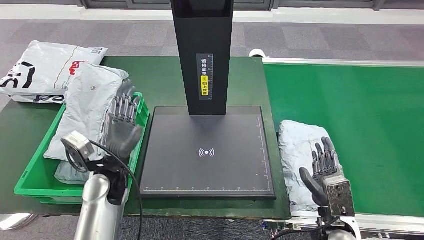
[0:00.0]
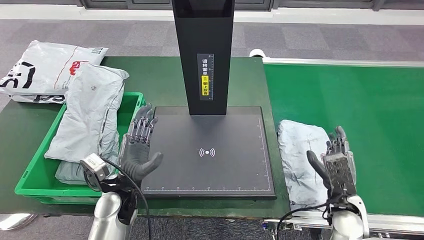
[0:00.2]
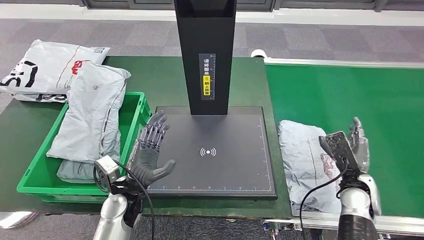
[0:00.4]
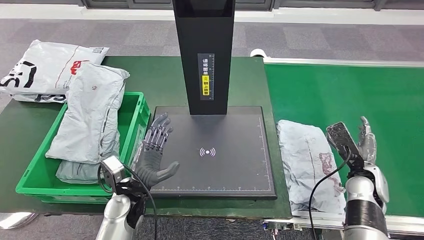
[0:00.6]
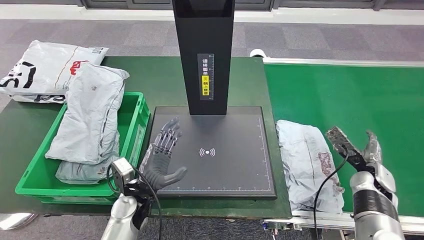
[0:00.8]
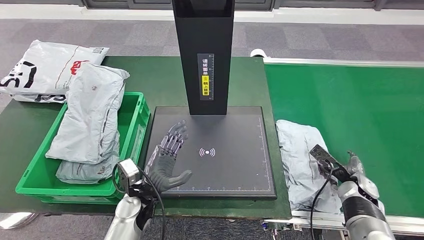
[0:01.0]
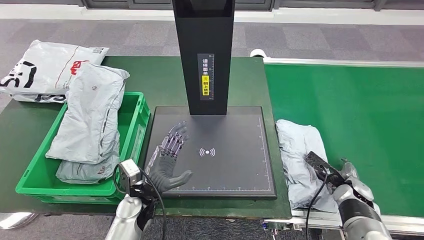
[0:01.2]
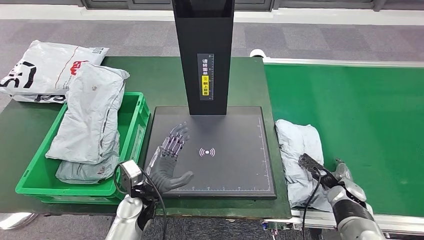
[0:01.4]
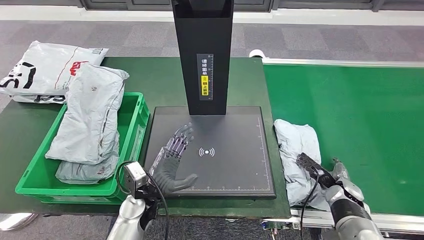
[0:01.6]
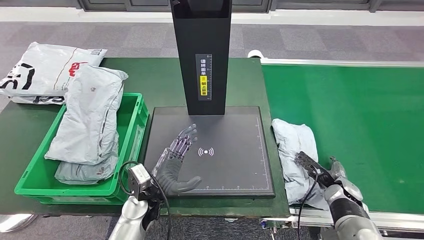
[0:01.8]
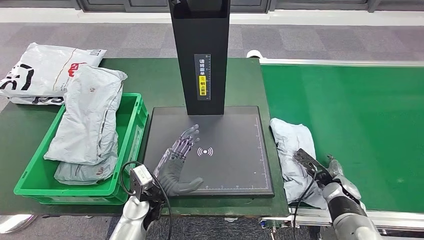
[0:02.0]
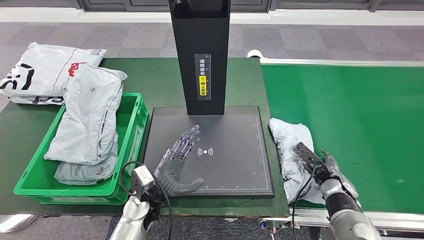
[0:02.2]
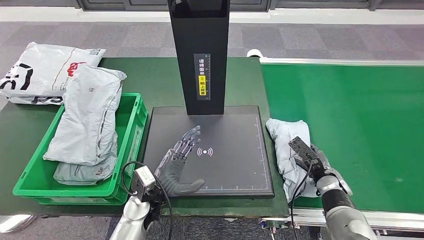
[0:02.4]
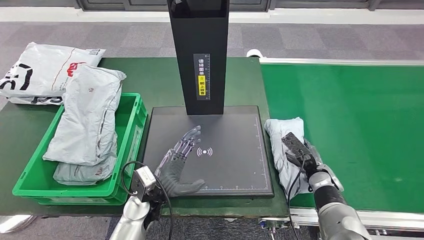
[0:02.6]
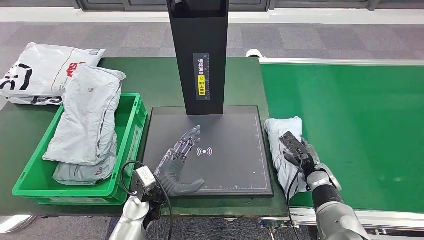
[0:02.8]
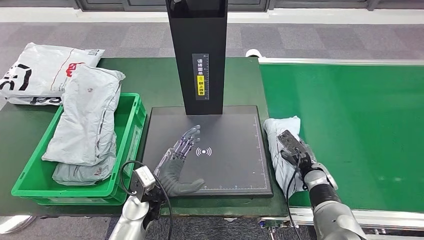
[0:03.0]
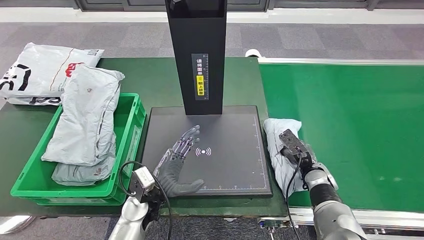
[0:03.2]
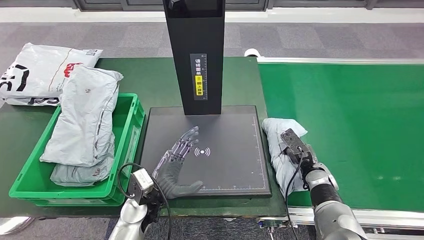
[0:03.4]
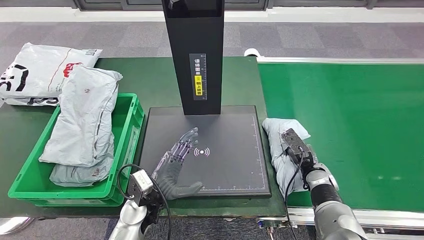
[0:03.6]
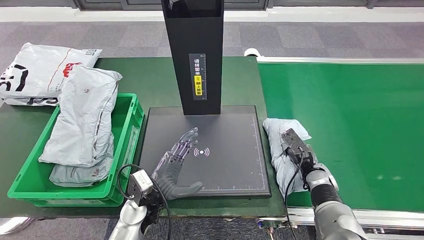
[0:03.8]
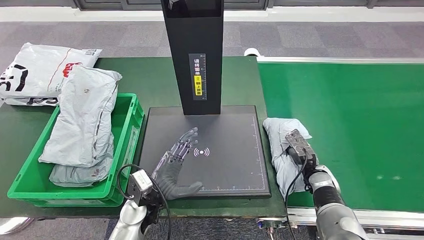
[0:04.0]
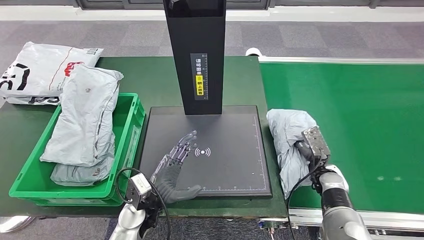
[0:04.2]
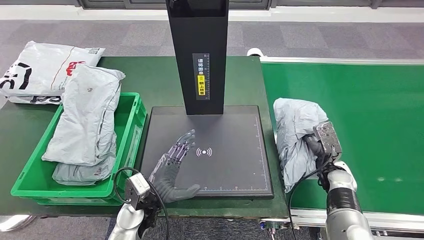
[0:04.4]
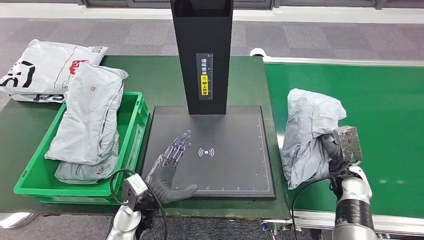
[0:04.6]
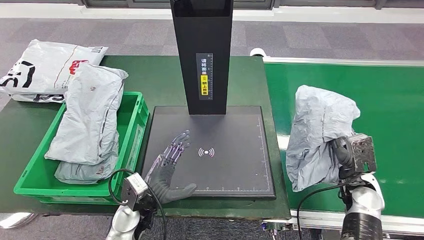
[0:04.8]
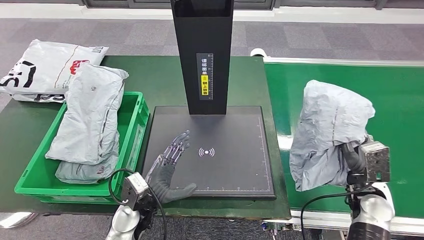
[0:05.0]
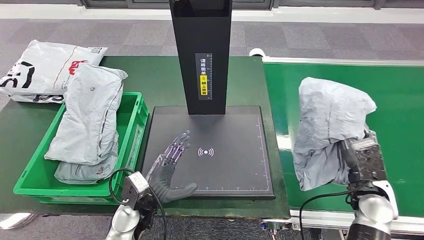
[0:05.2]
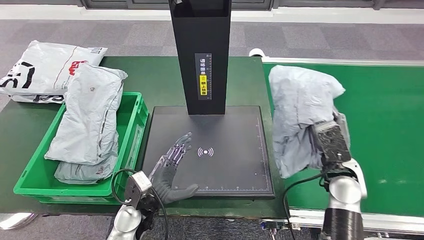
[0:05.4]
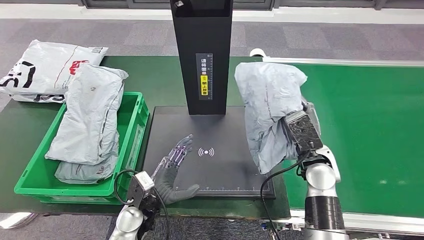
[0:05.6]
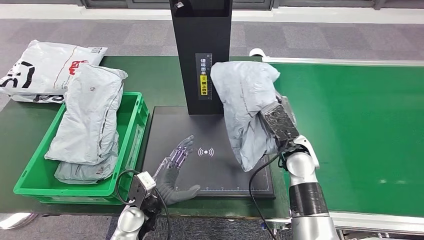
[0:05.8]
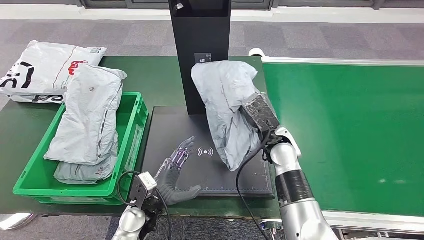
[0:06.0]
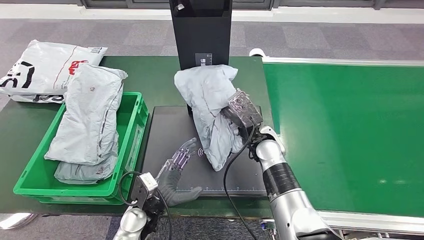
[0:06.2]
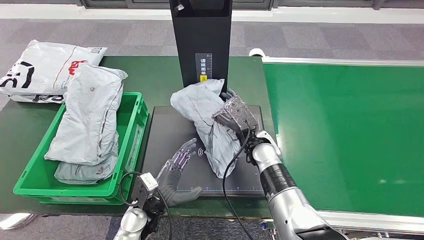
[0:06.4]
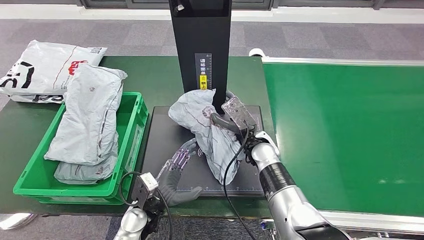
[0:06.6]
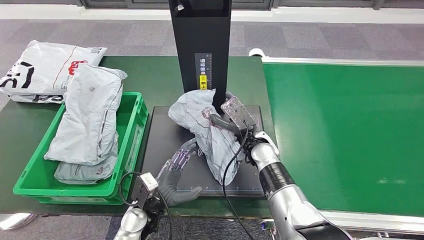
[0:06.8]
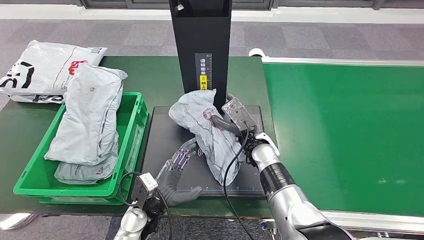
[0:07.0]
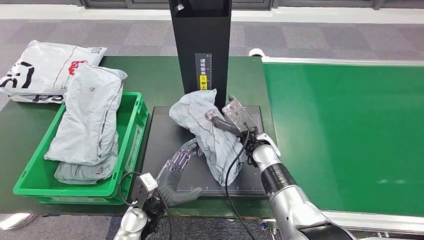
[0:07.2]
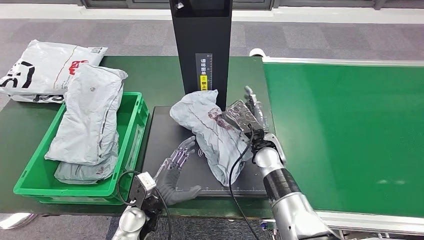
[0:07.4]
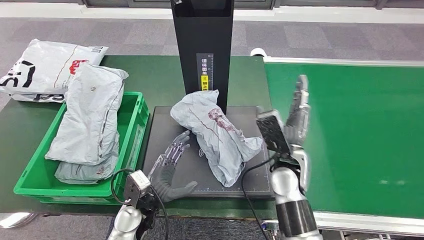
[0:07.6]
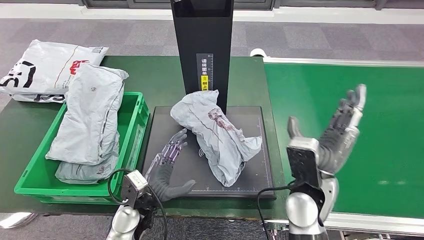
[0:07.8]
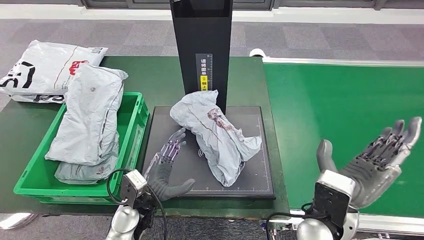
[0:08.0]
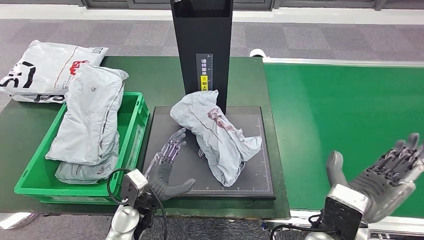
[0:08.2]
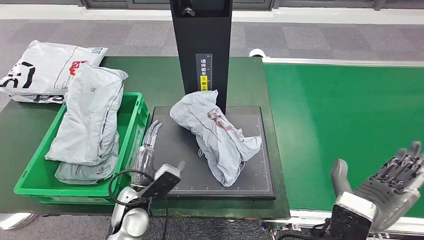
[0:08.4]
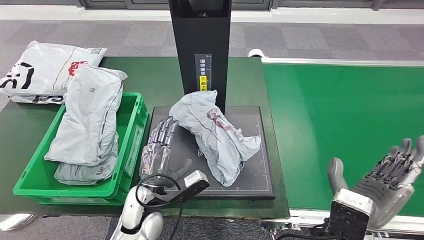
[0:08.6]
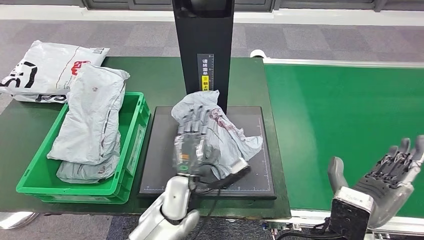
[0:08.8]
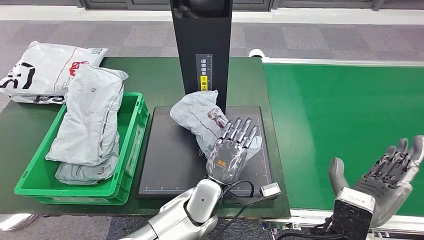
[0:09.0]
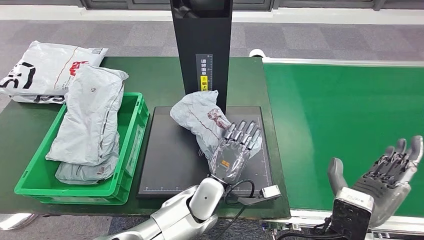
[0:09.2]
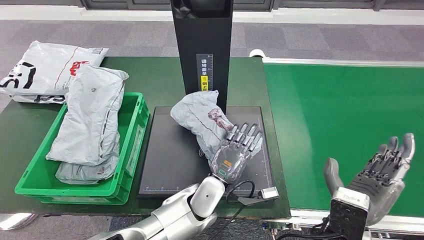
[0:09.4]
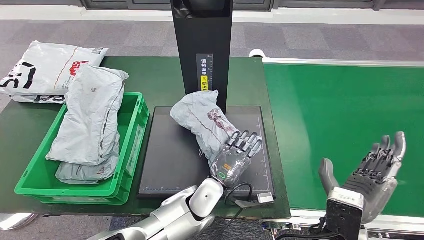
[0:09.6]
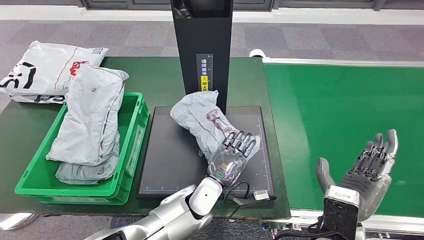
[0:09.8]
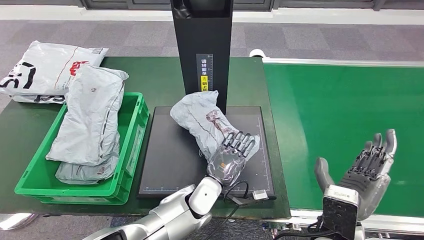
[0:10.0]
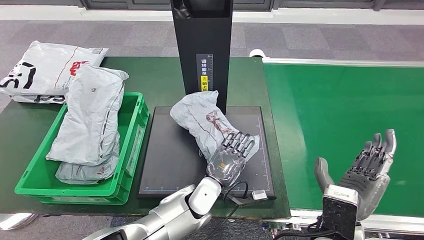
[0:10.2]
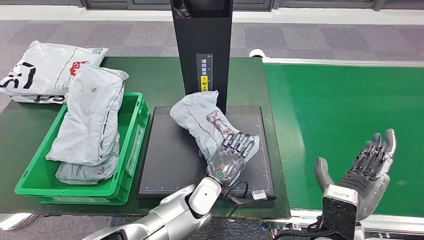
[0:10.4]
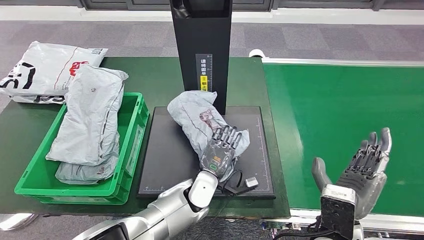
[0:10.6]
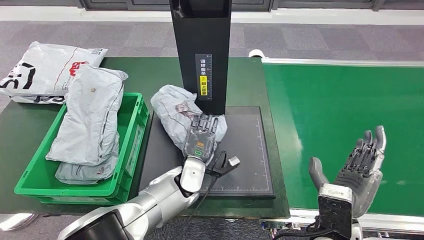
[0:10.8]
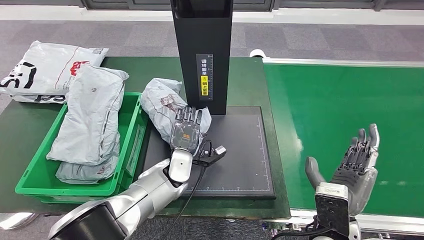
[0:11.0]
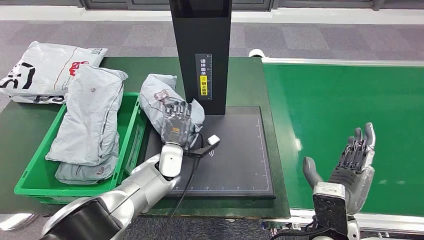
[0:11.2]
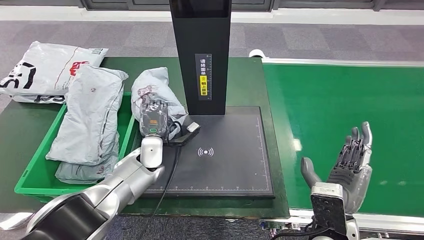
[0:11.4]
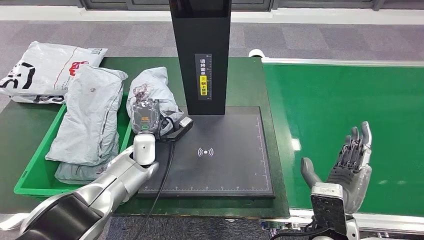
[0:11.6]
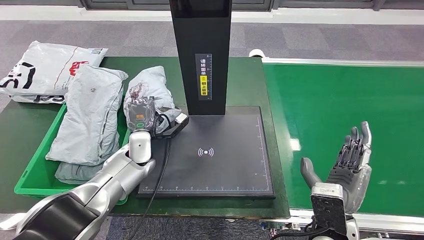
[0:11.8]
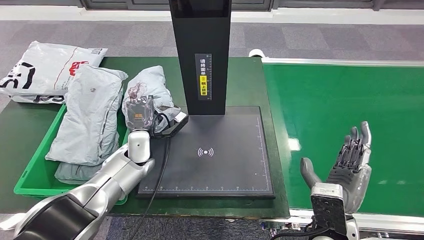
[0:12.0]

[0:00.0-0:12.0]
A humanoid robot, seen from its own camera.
Step, 0:01.8 to 0:05.0: Pick up the parcel from the conveyor belt.
Step, 0:05.4 to 0:07.6: Place the parcel onto the inbound machine.
0:00.0 to 0:01.6: The left hand is displaced downward and to the right by some 10 cm; the right hand heads forward, downward and to the right, covering roughly 15 cm.
0:03.0 to 0:04.4: The right hand moves to the right, some 5 cm.
0:09.0 to 0:10.4: The left hand moves roughly 5 cm.

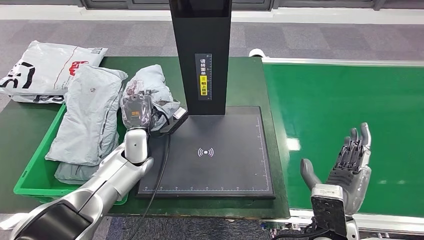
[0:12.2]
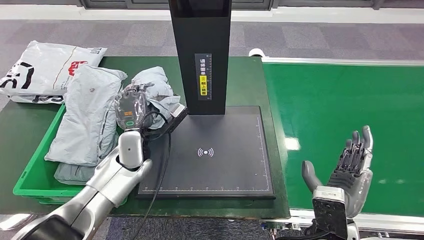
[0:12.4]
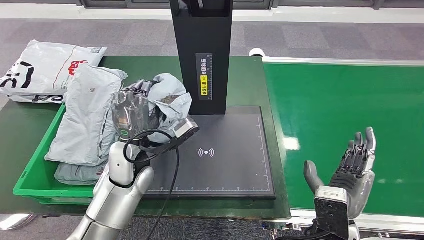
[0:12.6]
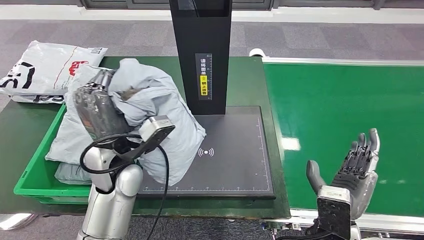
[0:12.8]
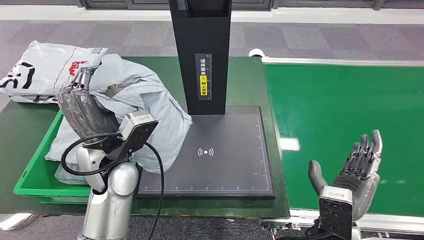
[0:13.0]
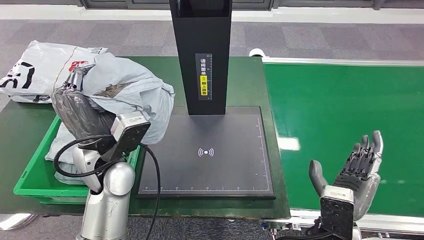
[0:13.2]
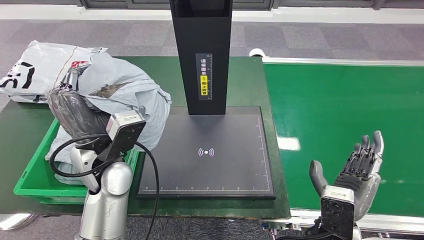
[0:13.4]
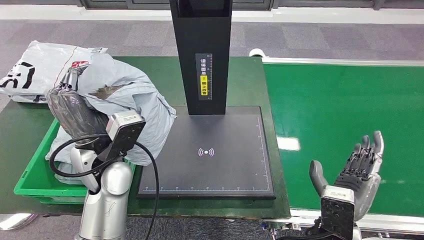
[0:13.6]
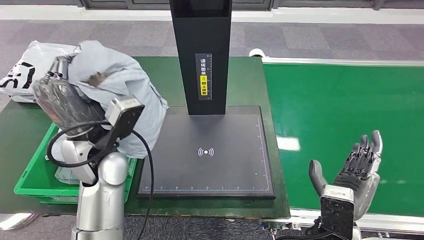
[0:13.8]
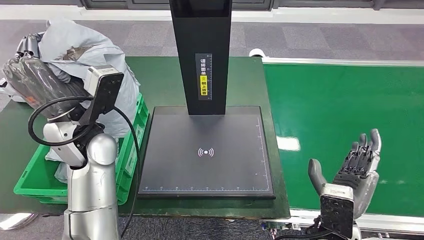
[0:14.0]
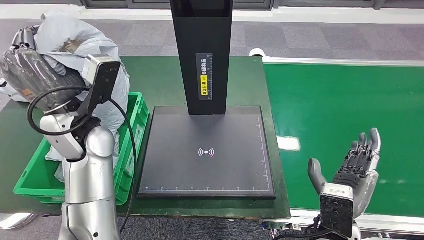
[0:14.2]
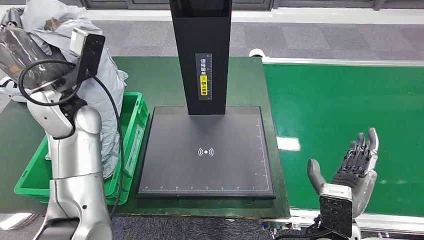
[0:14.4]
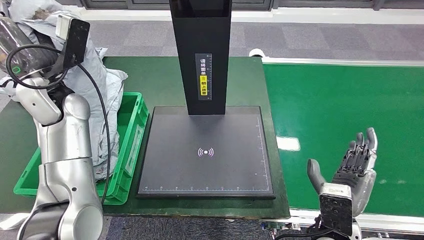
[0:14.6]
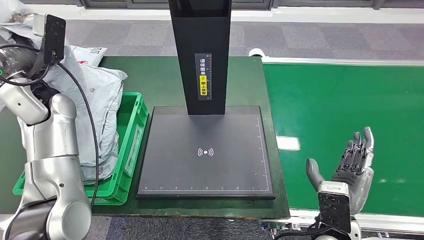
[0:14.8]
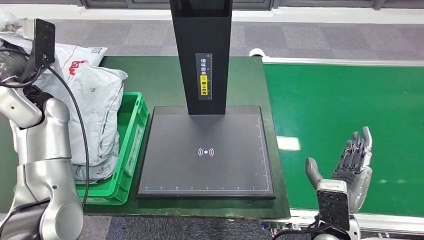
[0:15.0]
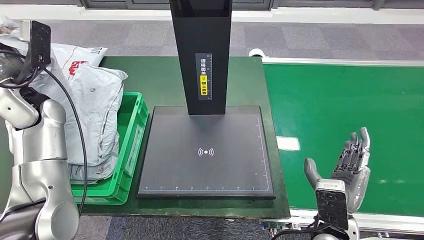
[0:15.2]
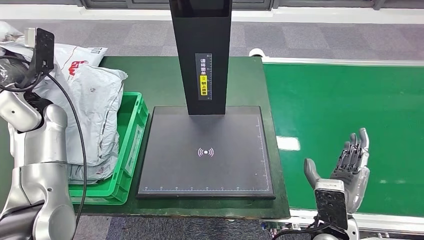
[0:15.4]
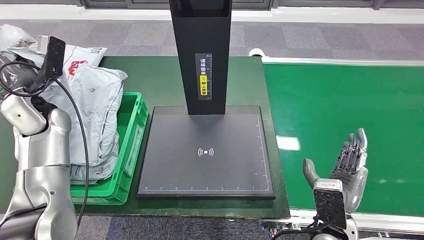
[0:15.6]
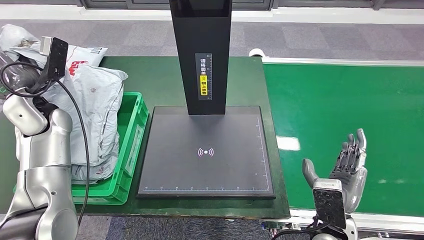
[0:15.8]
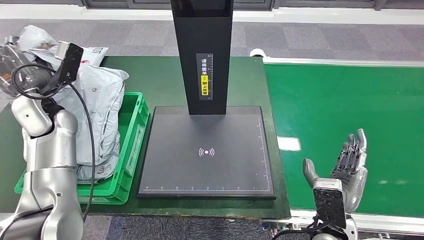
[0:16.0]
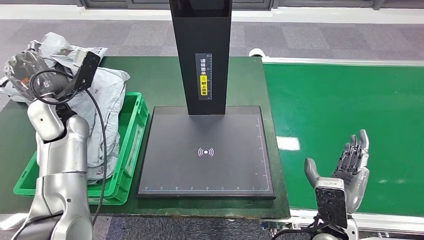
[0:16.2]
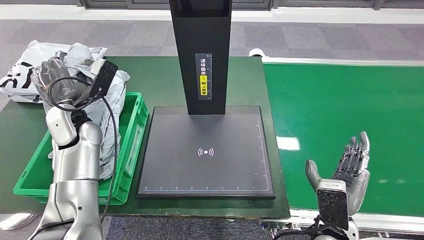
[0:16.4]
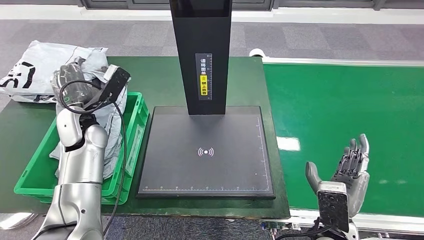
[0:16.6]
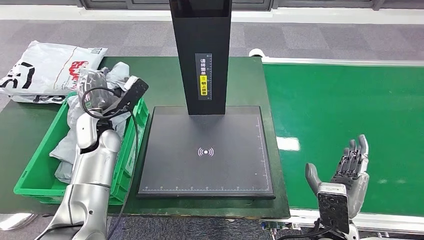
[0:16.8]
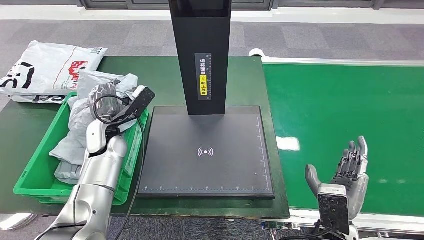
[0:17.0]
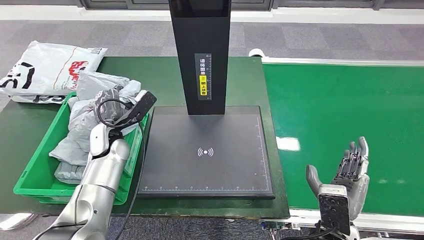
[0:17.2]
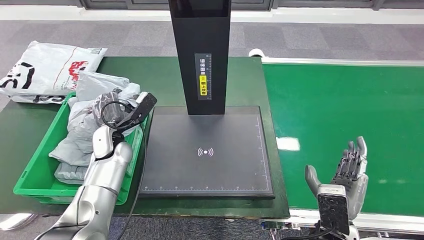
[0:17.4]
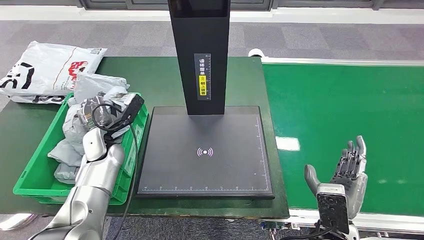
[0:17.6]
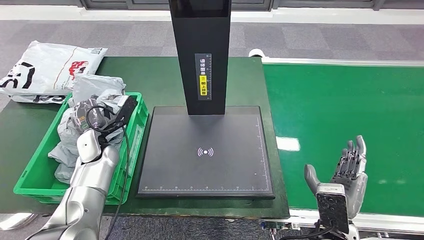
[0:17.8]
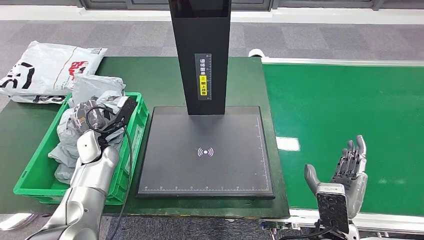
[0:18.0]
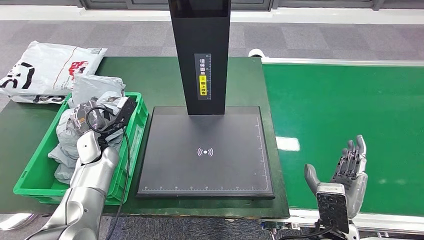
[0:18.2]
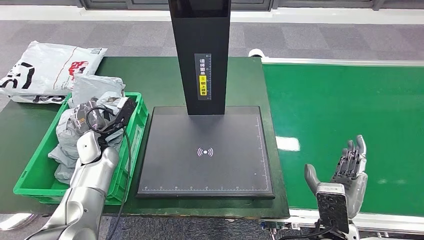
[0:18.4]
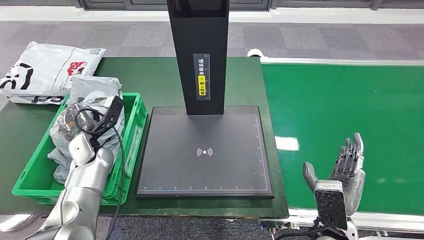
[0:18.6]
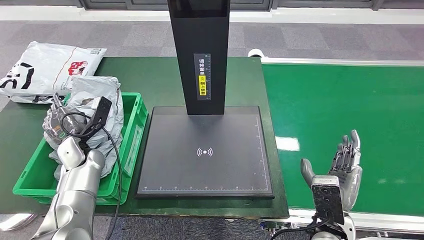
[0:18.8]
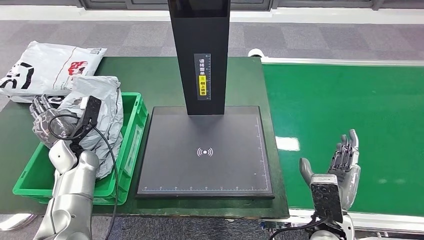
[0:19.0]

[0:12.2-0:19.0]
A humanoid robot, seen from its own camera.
0:15.0 to 0:16.2: The left hand travels downward by approximately 5 cm.
0:16.2 to 0:17.6: The left hand shifts approximately 15 cm downward and to the right.
0:17.6 to 0:19.0: The left hand is displaced to the left by some 5 cm.
